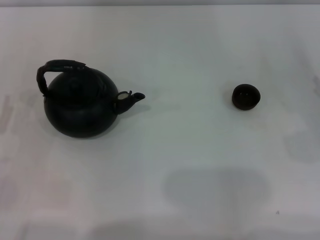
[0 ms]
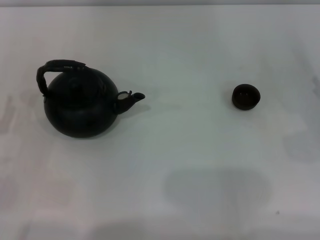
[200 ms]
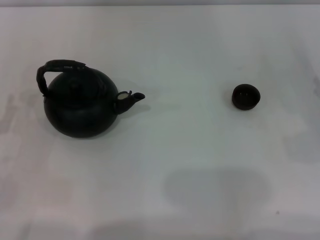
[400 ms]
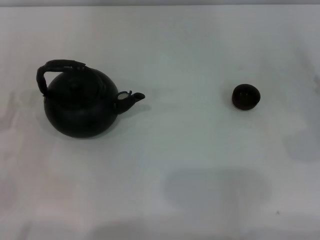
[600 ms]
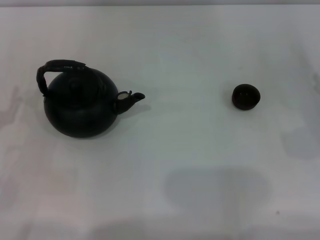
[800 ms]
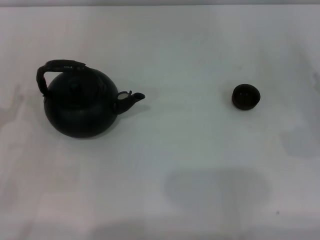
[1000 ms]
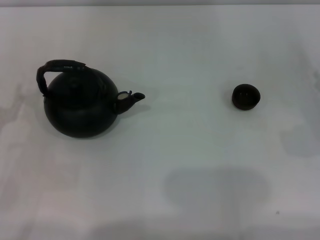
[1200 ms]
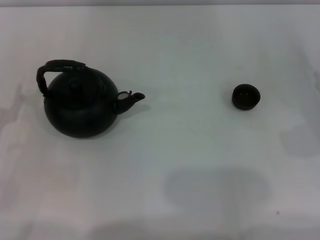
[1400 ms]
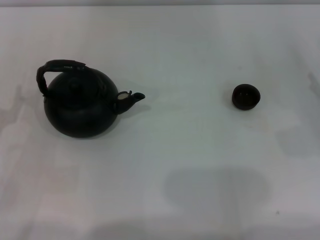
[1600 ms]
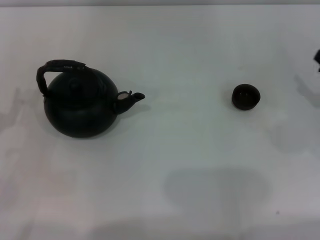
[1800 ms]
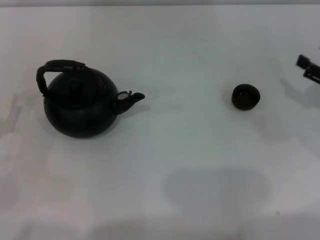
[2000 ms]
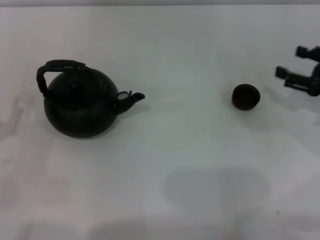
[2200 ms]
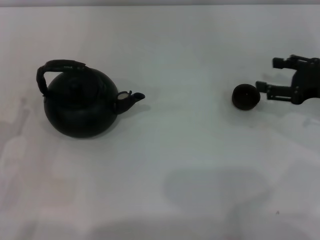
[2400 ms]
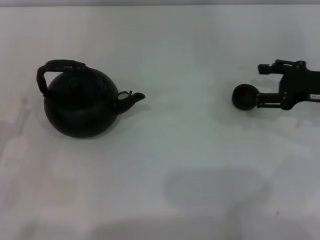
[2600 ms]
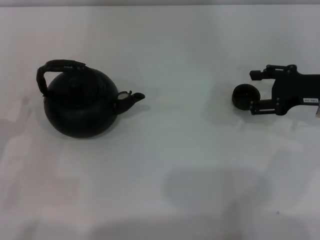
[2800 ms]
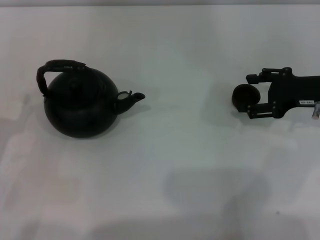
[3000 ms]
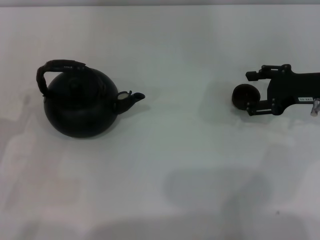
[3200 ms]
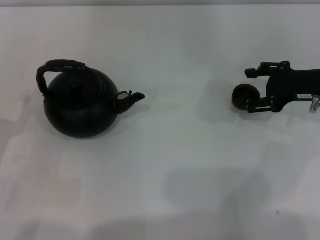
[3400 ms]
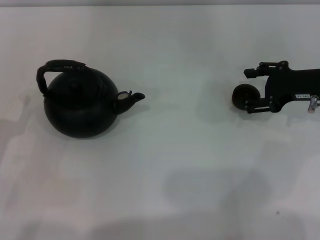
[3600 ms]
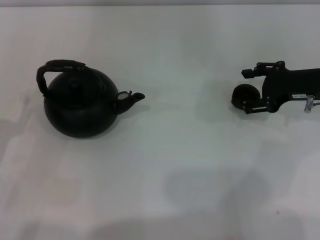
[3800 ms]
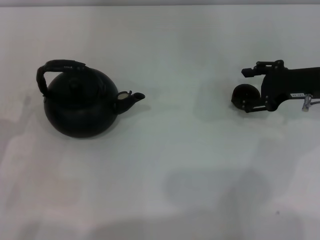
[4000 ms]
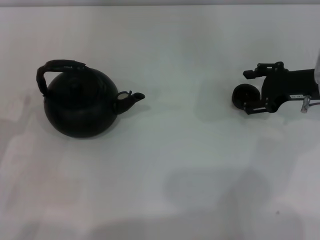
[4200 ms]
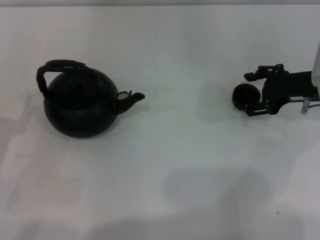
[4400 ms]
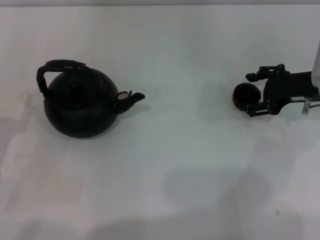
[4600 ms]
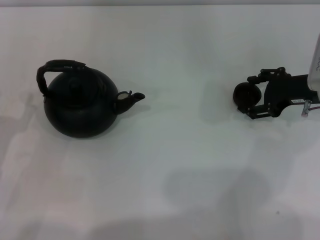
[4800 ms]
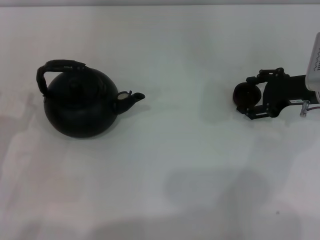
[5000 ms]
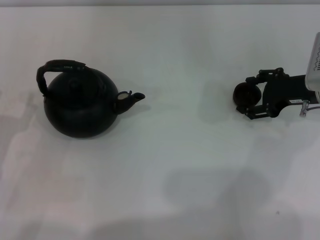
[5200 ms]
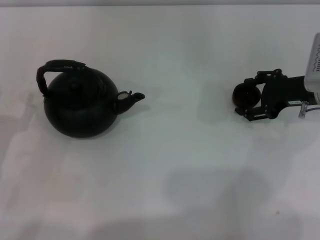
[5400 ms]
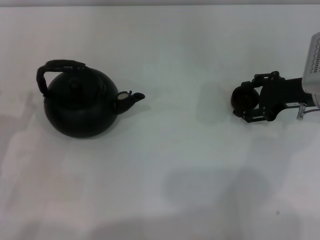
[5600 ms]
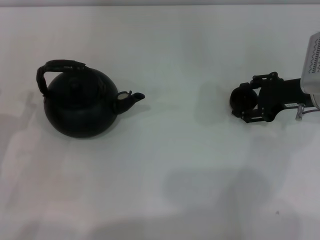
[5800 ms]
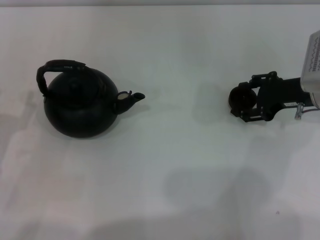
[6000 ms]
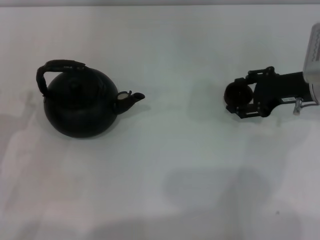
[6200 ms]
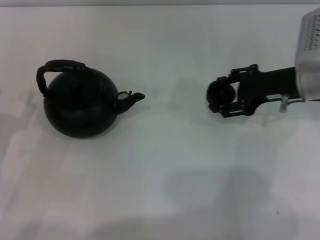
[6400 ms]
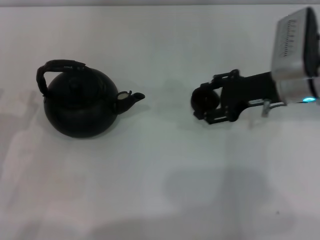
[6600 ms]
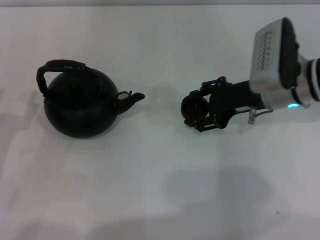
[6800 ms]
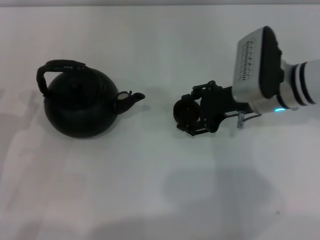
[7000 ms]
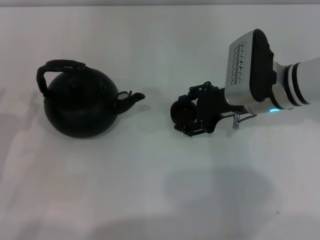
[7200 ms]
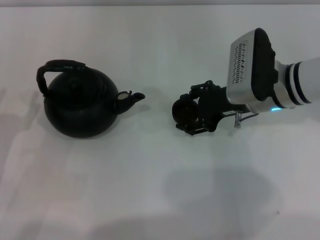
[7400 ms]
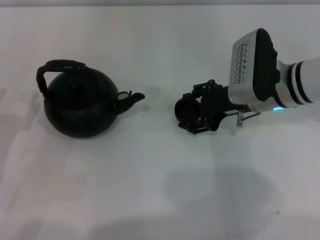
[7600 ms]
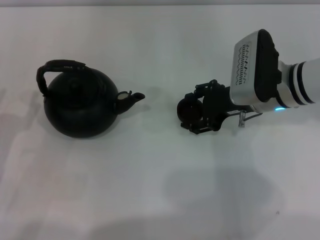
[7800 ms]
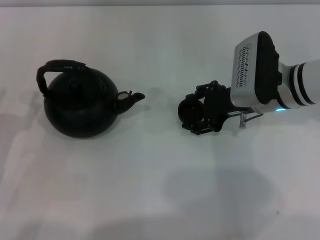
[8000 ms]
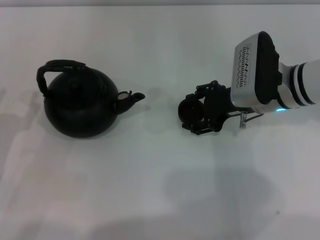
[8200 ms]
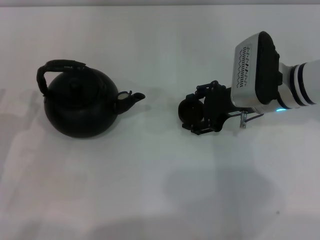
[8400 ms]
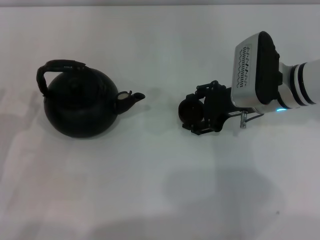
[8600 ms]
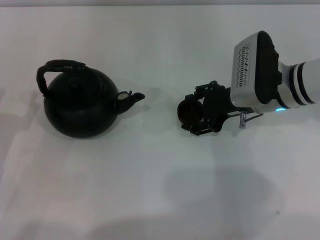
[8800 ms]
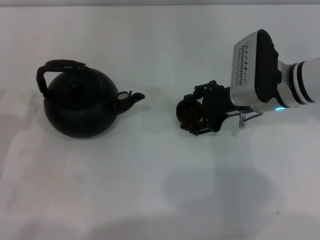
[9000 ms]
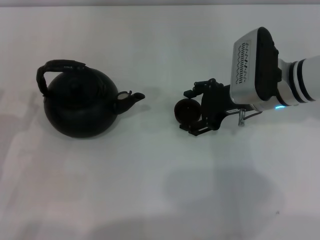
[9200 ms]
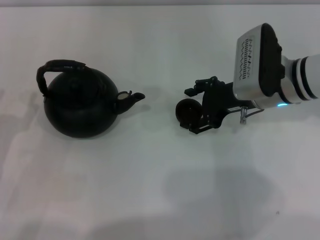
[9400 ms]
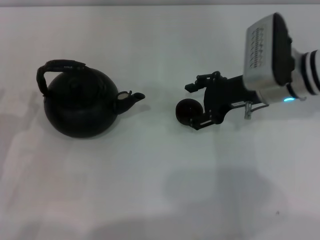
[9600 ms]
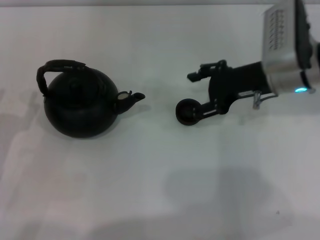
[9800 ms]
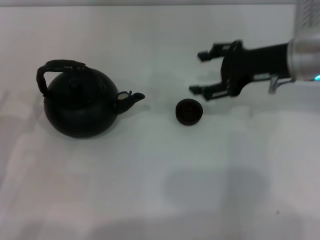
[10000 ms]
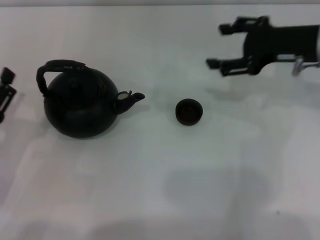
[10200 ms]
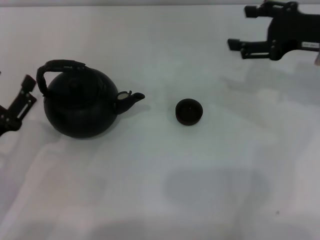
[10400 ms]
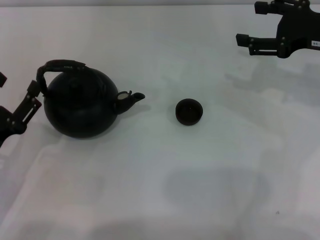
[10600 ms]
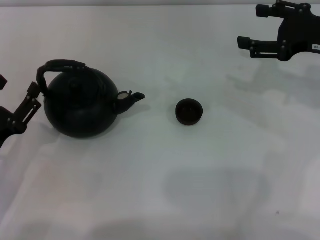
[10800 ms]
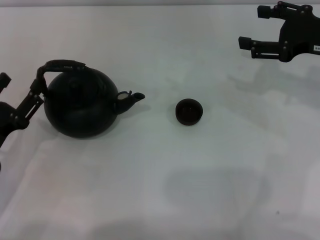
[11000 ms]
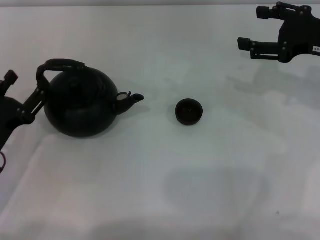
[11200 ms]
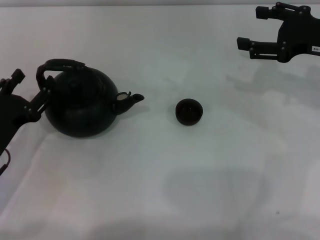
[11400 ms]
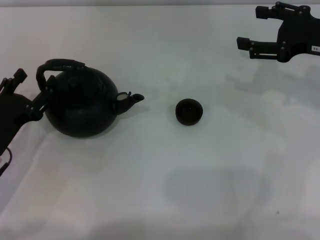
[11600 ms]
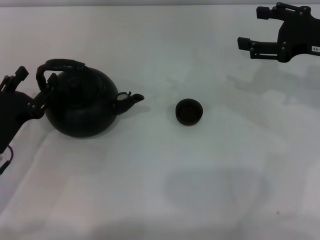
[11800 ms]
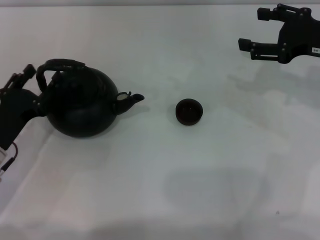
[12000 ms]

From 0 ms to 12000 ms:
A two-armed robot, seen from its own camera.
Task of the whole recording: Grasp the handle of the teapot with one hand and pour tea into the teacup.
Step, from 0 ms to 6400 ms: Pick up the teacup with the right gripper.
Step, from 6600 ms to 10000 ms: Place the teacup in the center of view with the right gripper.
From 1600 ms to 3000 ms: The right gripper shifts about 10 cm forward and to the left.
From 3000 ms to 4400 ms: The grippers make only small movements.
From 4400 ms to 6000 ms: The right gripper closes.
From 6000 ms to 7600 ms: The right gripper travels to the left by approximately 10 cm.
From 7600 ms to 9000 ms: Both grippers stay put.
From 9000 ms to 10400 ms: The right gripper is displaced to the right and upward by roughly 15 cm, and opens.
From 10400 ms to 12000 ms: The left gripper changes place by approximately 5 cm.

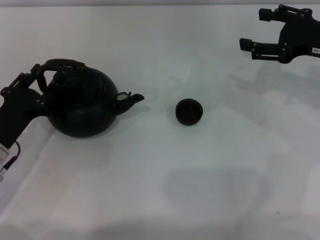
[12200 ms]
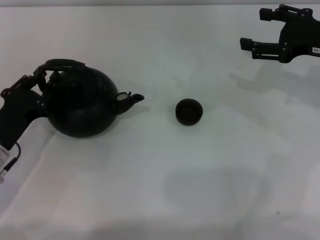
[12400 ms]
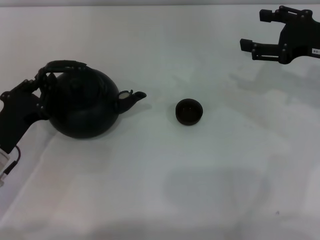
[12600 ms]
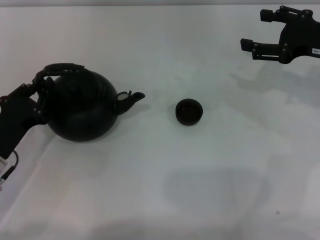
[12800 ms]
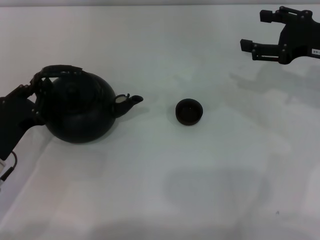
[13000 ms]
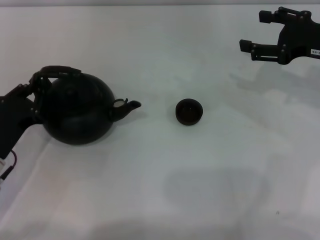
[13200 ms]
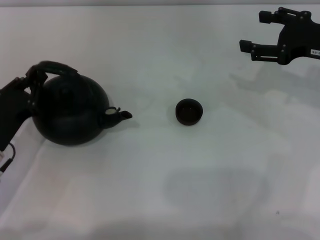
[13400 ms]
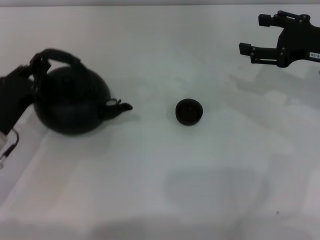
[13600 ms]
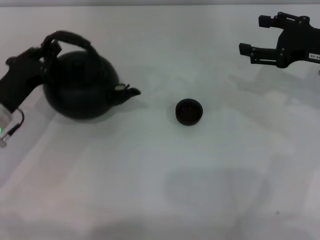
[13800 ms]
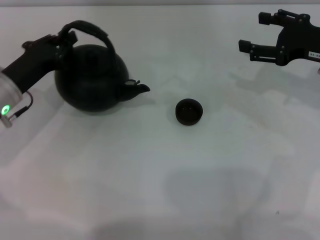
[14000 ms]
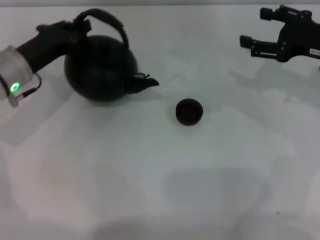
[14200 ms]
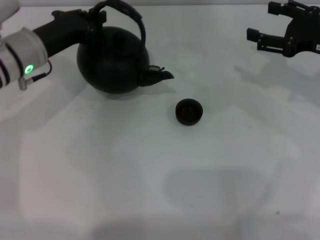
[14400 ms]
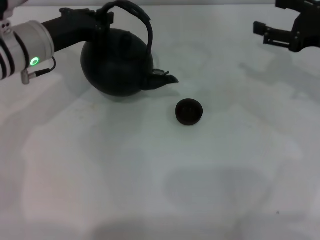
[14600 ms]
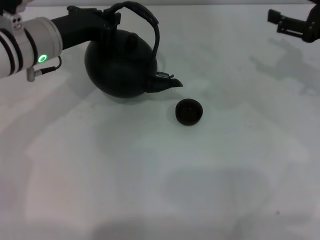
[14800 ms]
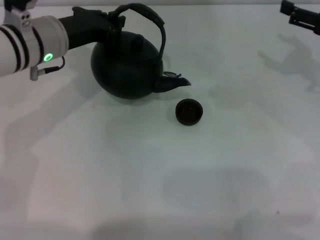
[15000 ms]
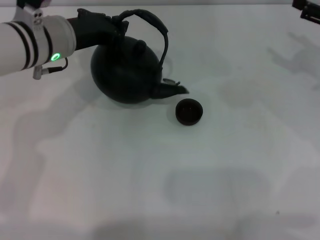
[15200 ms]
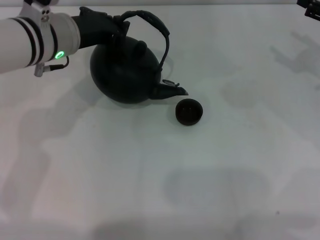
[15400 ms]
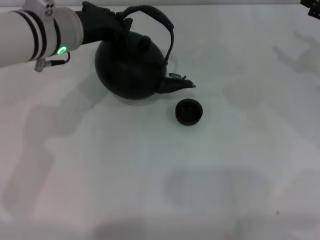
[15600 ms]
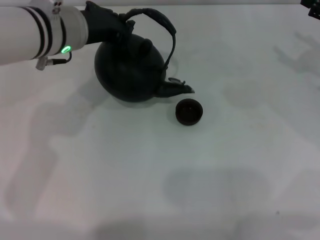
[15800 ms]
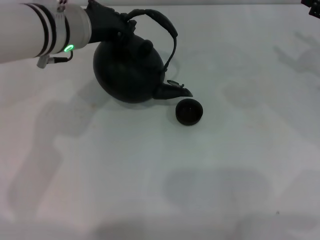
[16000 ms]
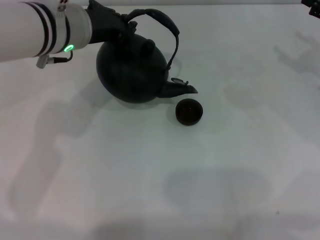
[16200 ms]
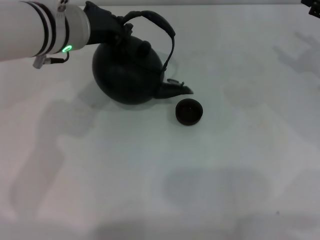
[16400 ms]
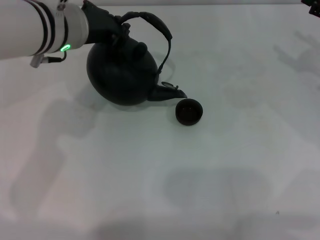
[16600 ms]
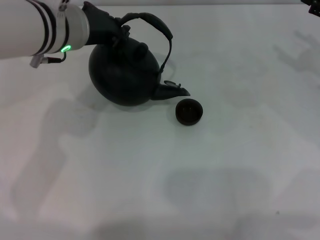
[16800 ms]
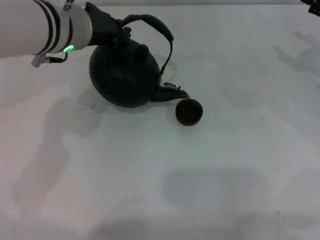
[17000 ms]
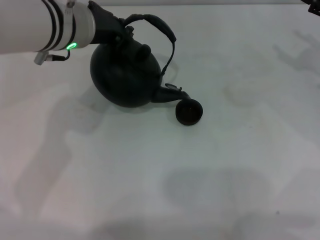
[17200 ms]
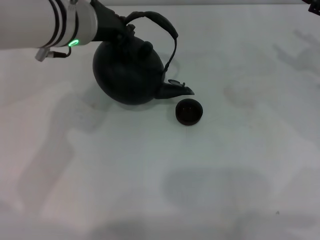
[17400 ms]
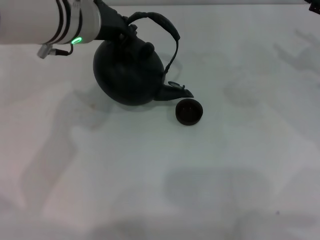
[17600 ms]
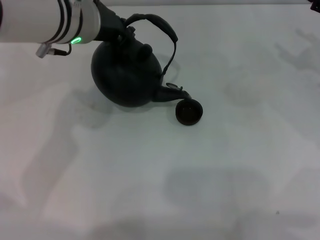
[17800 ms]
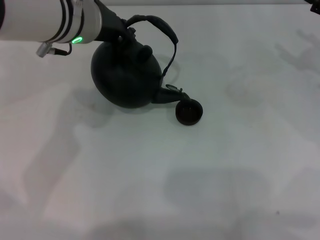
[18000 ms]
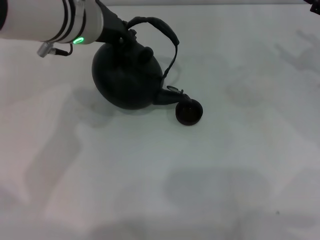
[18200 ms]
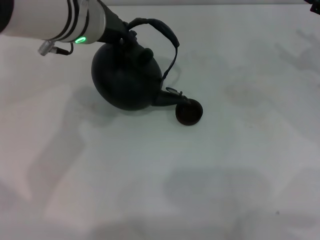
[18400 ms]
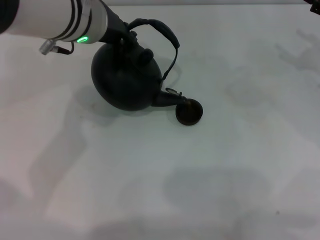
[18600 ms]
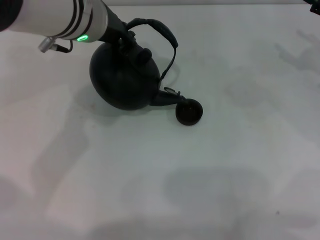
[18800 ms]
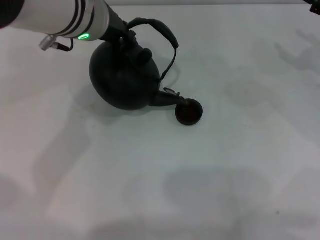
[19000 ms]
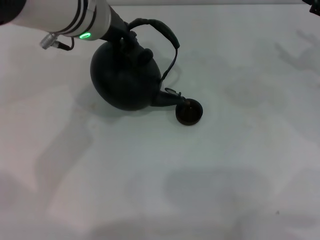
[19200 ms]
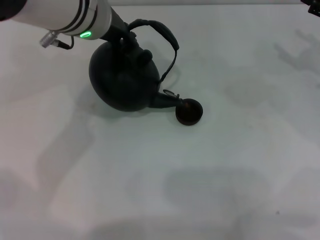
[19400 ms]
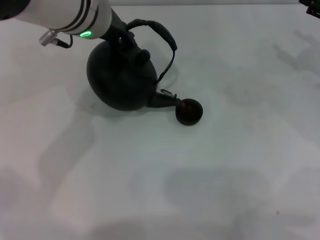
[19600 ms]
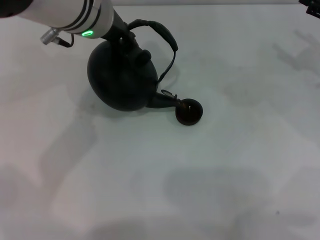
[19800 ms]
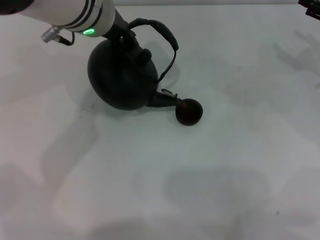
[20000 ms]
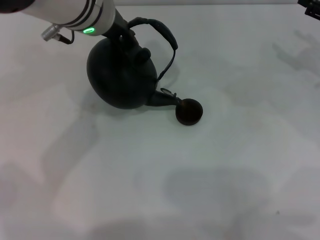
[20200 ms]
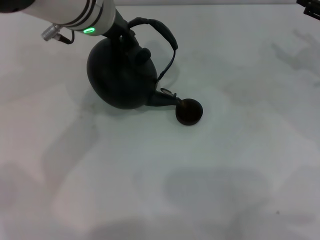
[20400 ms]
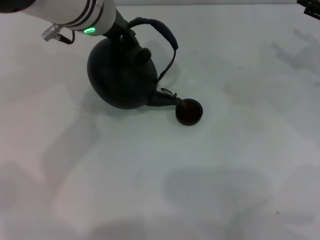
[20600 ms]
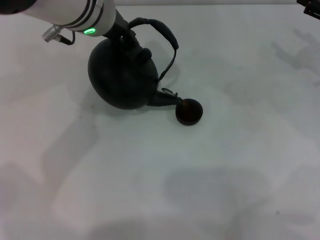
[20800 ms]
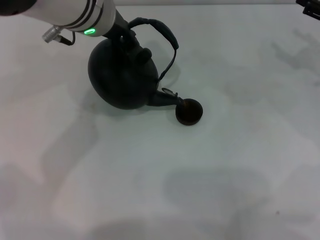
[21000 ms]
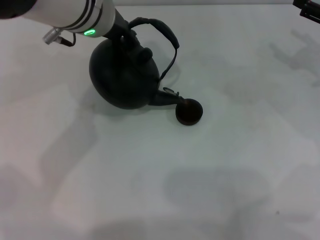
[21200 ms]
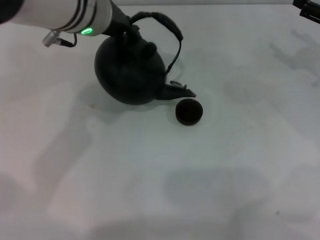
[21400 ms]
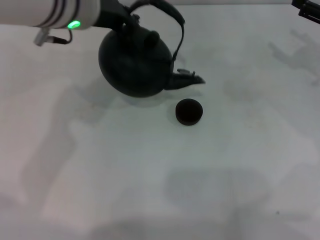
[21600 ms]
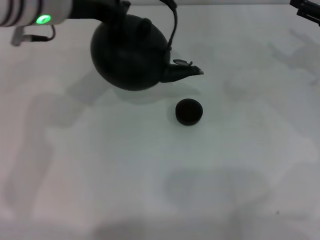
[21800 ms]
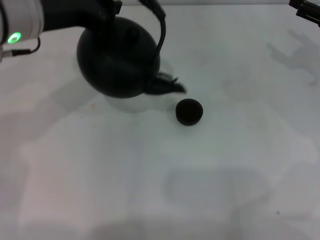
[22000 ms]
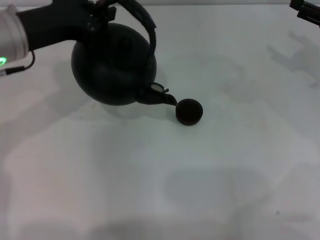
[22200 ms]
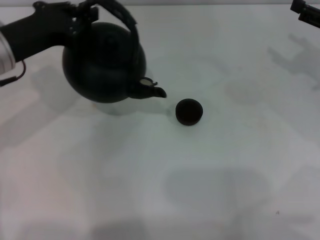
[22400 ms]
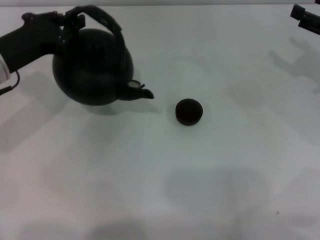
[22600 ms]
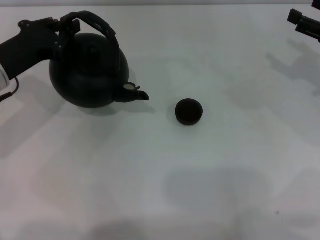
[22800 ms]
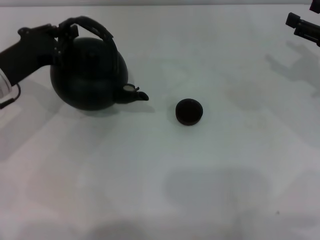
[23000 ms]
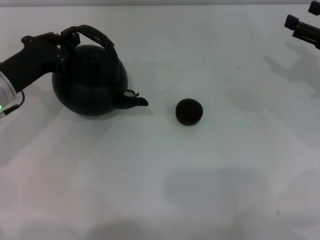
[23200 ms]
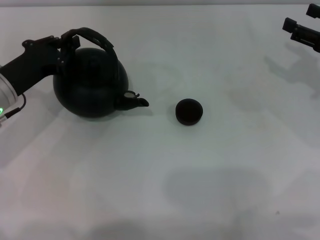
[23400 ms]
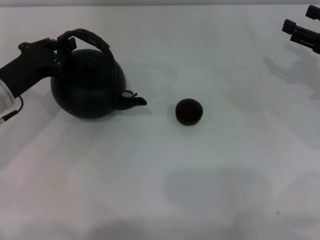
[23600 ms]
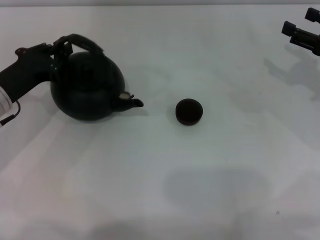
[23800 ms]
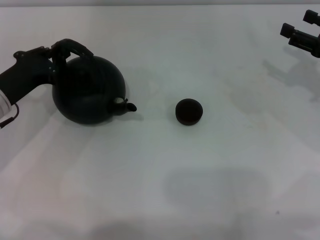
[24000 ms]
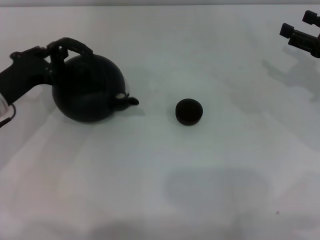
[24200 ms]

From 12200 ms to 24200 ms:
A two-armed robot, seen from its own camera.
Task of the whole recording: Grasp the handle of the teapot with one hand and pour tea into the teacup.
Step, from 14400 ms to 21800 ms: Pour tea into the teacup with the left gripper.
From 12200 ms to 13800 ms: The left gripper travels forward by roughly 5 cm, and closes.
From 13800 ms to 15200 ms: The right gripper goes some 5 cm to the right. Meanwhile the left gripper goes approximately 15 cm upward, to the right and forward.
From 15200 ms to 16600 ms: The left gripper shifts by about 5 cm.
From 16600 ms to 19800 ms: The grippers move only a little.
From 19800 ms to 21200 ms: The two grippers keep their place.
From 21200 ms to 22600 ms: The left gripper is displaced to the left and downward by roughly 20 cm.
From 22600 ms to 24200 ms: The left gripper travels downward by approximately 5 cm.
